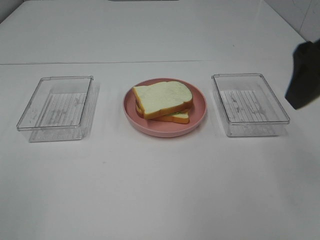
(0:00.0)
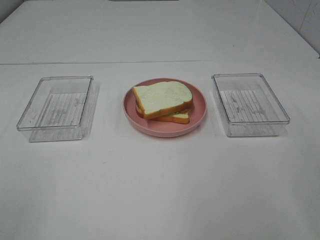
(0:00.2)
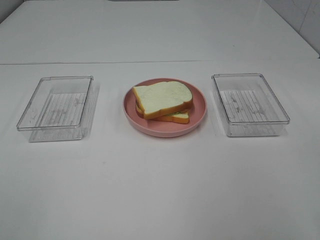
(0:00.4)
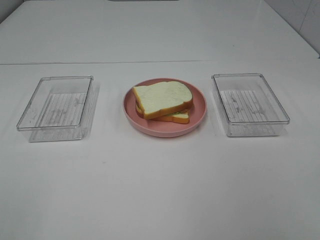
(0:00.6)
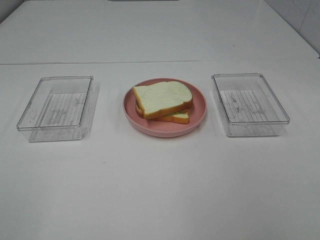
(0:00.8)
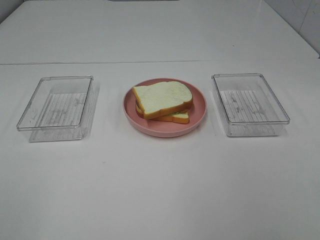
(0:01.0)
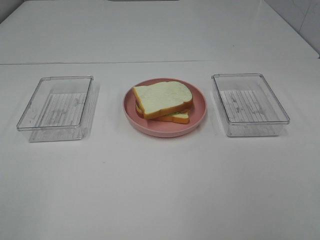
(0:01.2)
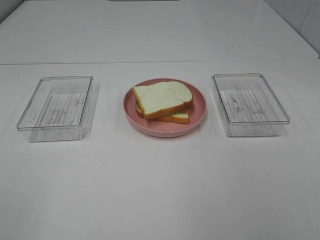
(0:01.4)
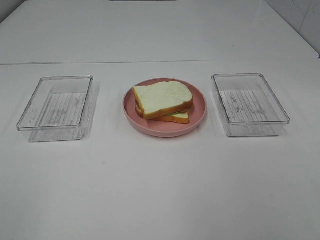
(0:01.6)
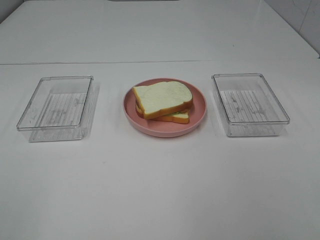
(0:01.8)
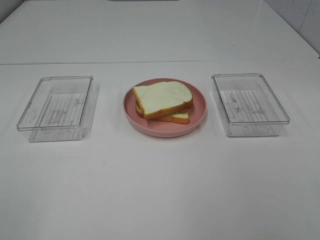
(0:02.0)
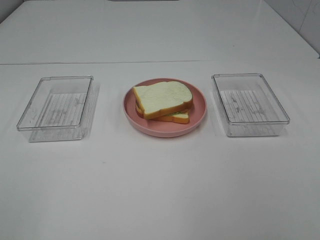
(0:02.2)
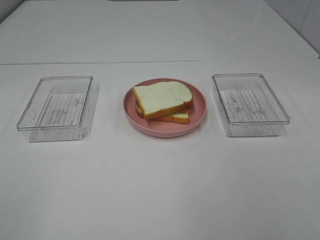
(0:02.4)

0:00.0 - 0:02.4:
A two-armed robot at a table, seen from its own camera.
Task of the whole recording: Make sandwiches.
0:00.0 - 0:01.2: The right gripper shifts approximately 20 cm backward.
0:01.2 - 0:02.4: The two grippers keep their place.

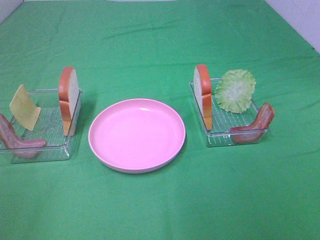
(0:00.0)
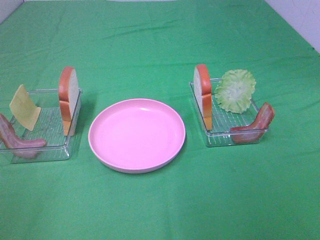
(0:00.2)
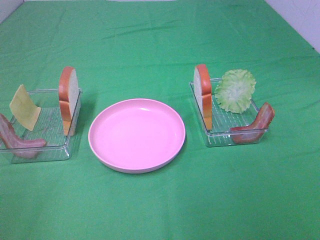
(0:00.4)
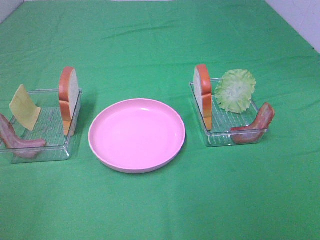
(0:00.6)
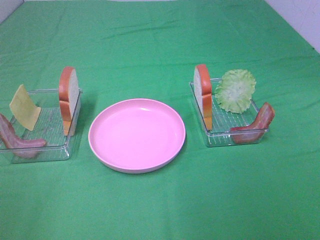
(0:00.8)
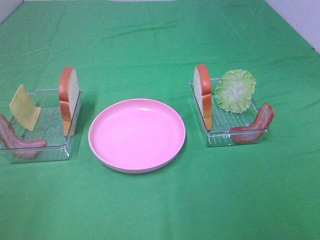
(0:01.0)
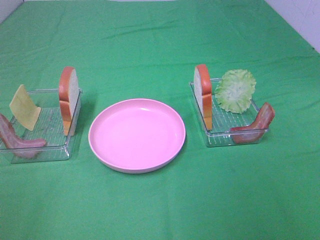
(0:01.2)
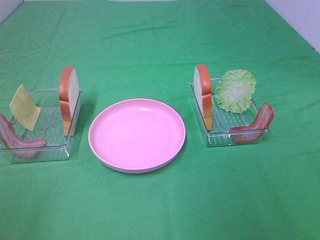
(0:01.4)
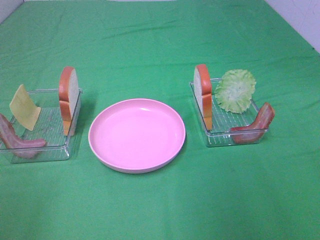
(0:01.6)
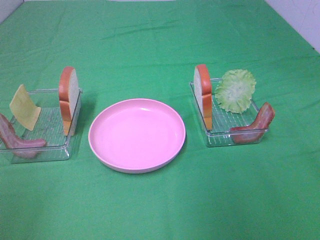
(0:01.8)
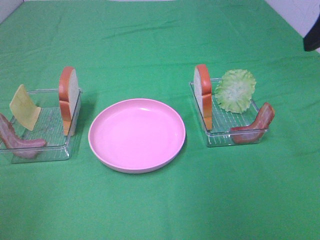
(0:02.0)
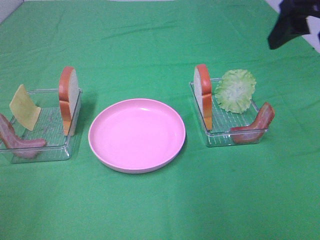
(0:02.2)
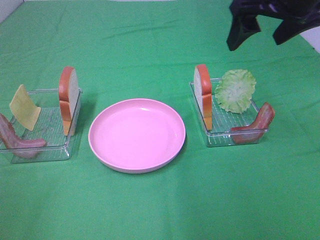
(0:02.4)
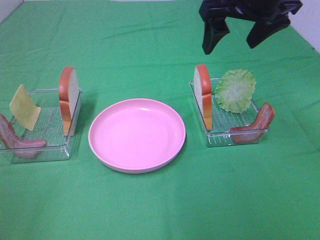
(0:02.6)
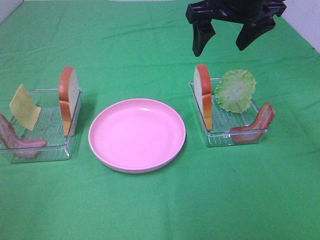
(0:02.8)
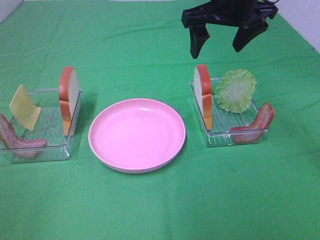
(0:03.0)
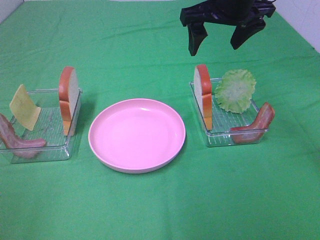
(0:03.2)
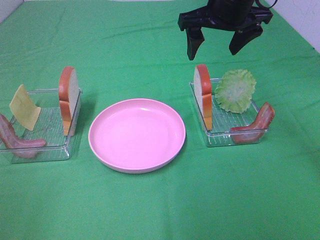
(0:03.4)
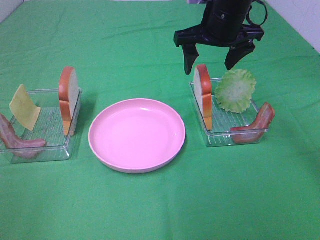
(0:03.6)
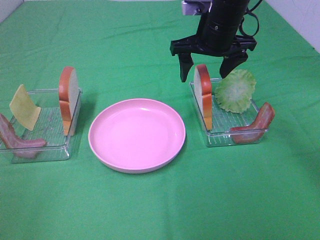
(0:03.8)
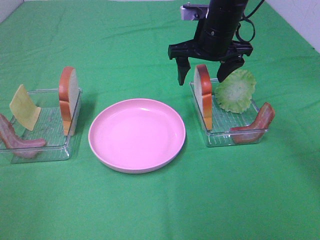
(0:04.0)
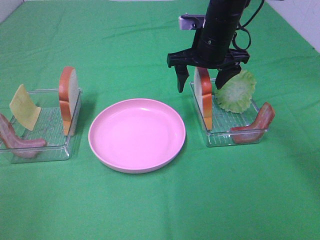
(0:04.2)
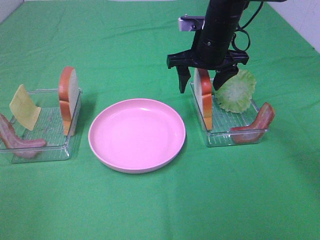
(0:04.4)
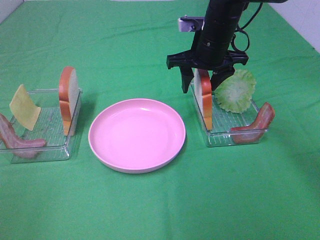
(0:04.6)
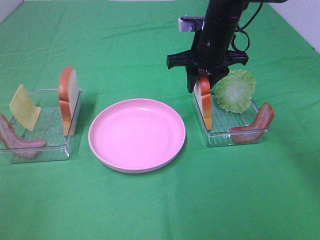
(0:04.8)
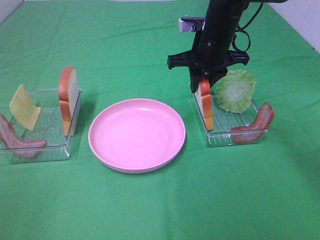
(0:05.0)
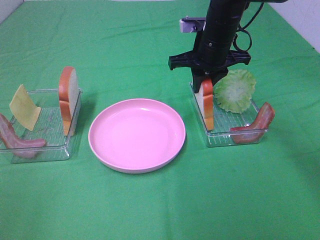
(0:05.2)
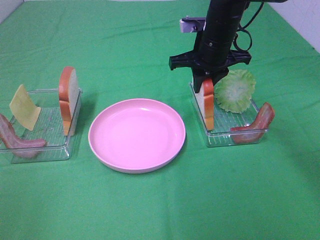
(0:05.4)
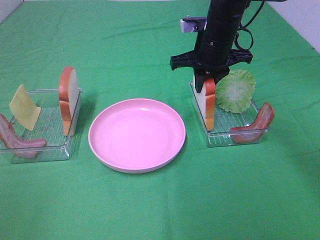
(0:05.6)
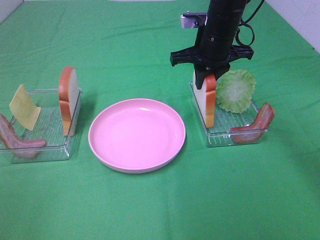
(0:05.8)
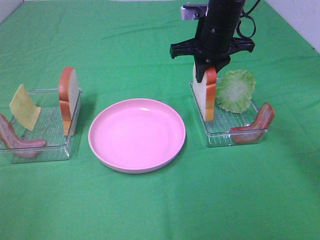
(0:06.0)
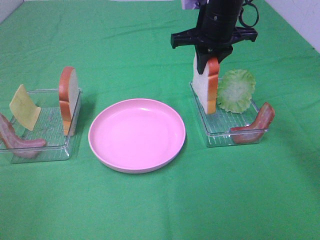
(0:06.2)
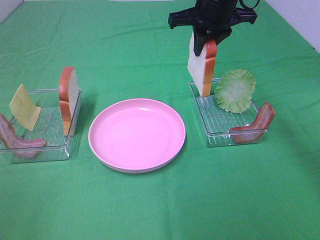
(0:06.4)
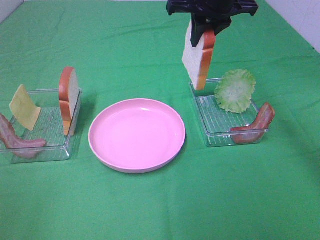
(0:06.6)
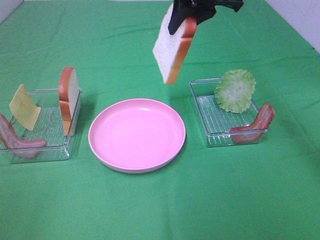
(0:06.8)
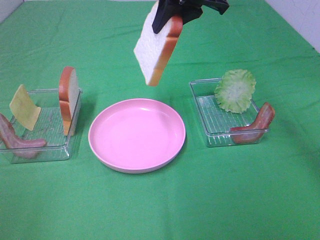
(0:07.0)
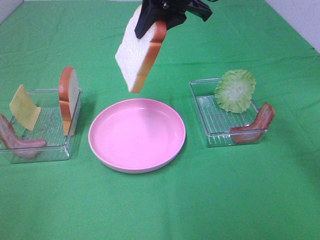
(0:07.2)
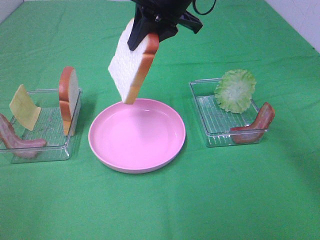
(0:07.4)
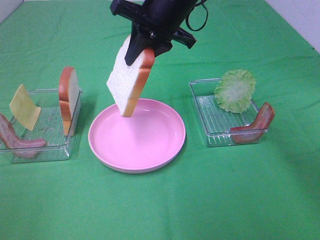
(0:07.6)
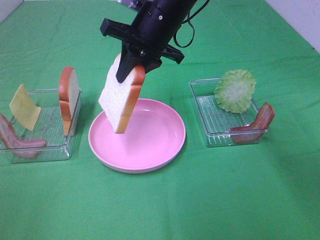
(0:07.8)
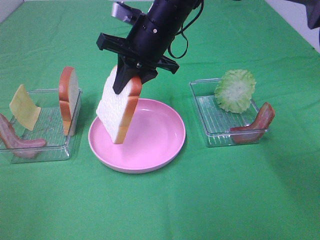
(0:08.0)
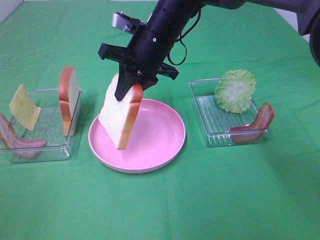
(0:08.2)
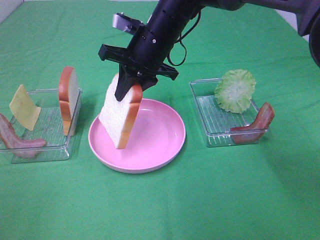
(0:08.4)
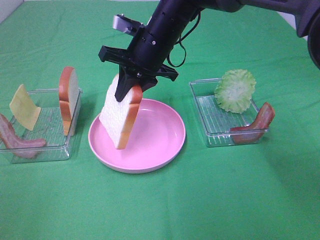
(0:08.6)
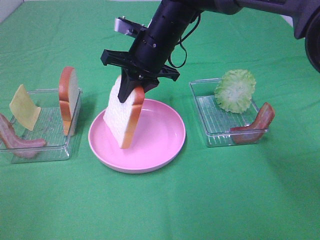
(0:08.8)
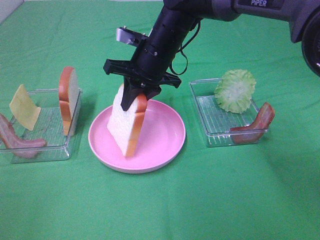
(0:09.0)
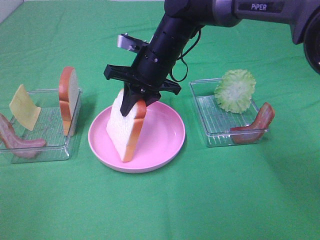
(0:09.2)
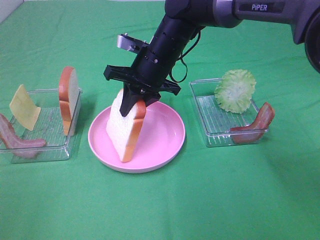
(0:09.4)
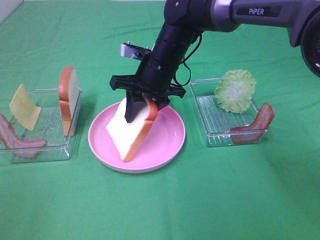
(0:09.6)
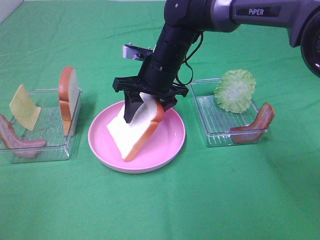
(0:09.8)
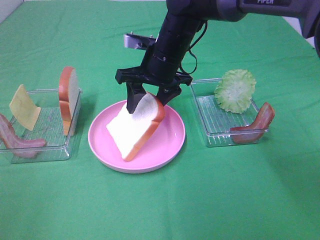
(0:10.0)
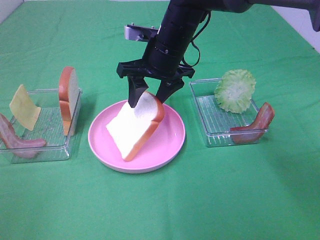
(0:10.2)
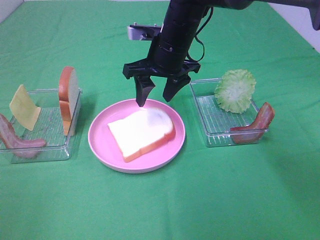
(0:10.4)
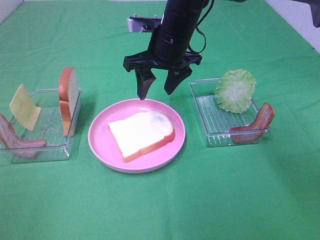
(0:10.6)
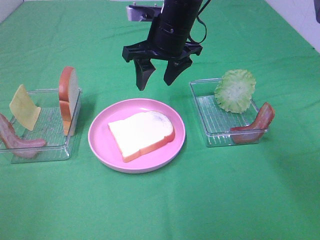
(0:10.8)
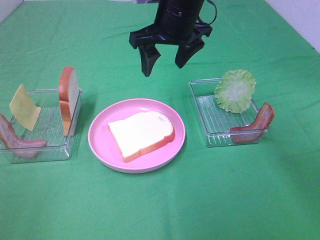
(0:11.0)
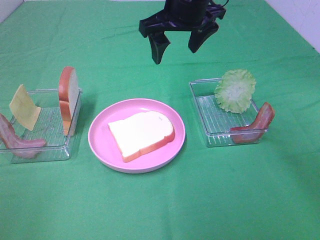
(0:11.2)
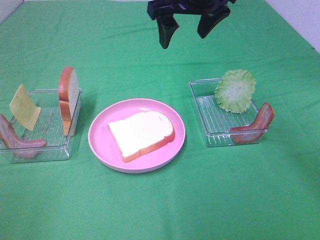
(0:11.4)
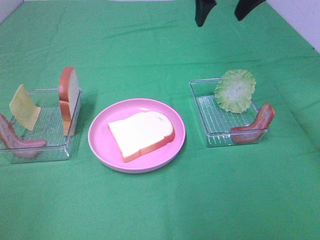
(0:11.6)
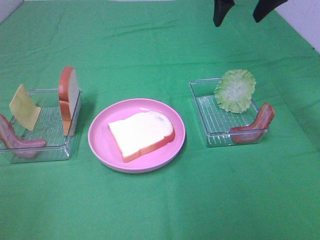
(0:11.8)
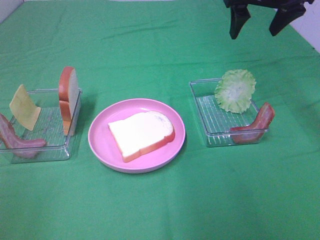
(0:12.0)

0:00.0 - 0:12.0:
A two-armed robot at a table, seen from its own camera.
Task of the whole recording: Make sandwiches.
Step, 0:00.0 - 0:05.6: Right hand:grab the bread slice.
Step, 0:05.8 - 0:10.4: Right hand:place the bread slice on the plate.
0:01.6 - 0:03.0: The right gripper travels forward and to the left by about 30 cm.
0:03.0 - 0:04.4: The right gripper is displaced downward by approximately 10 cm.
0:04.4 - 0:06.0: The right gripper closes its fingers.
0:06.0 - 0:07.6: The right gripper is displaced to the left by some 10 cm.
0:07.6 - 0:09.0: The right gripper travels downward by roughly 10 cm.
0:09.0 - 0:10.4: The right gripper opens its fingers.
0:10.4 - 0:12.0: The right gripper travels to the right and upward by roughly 20 cm.

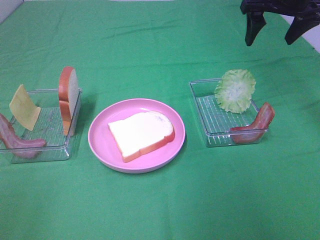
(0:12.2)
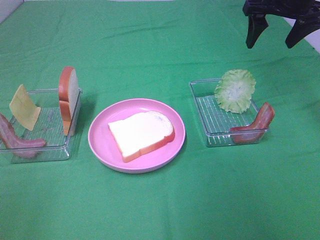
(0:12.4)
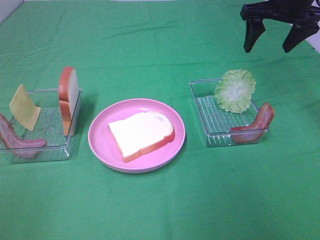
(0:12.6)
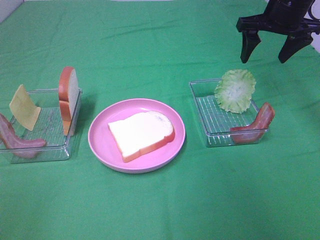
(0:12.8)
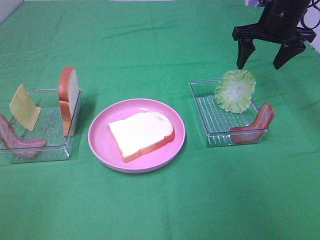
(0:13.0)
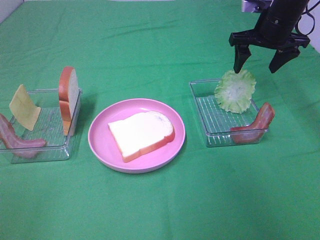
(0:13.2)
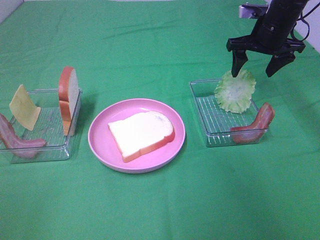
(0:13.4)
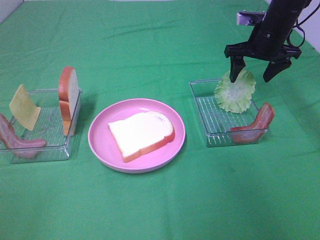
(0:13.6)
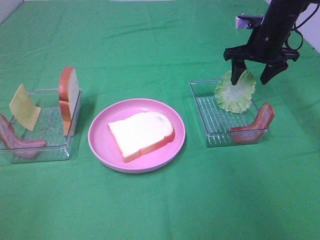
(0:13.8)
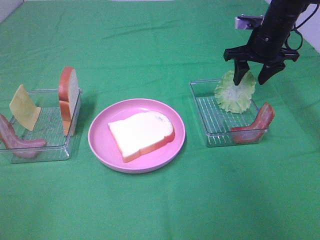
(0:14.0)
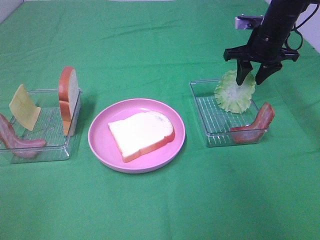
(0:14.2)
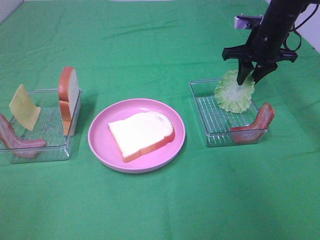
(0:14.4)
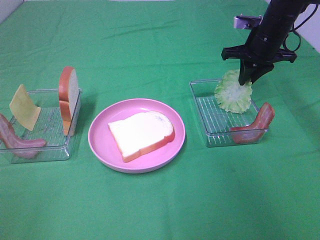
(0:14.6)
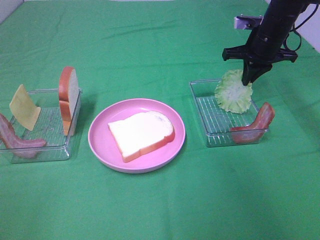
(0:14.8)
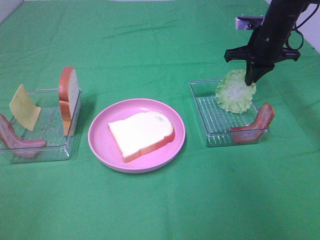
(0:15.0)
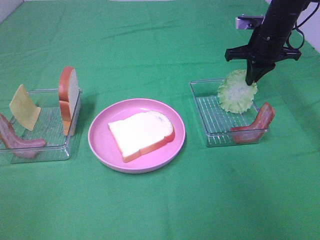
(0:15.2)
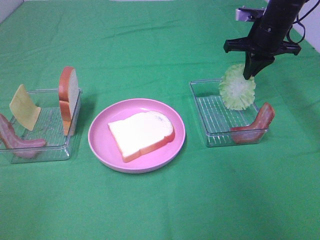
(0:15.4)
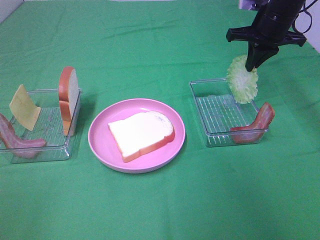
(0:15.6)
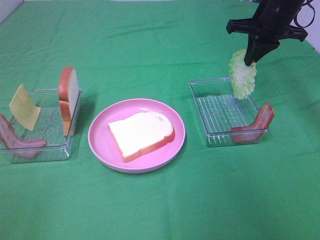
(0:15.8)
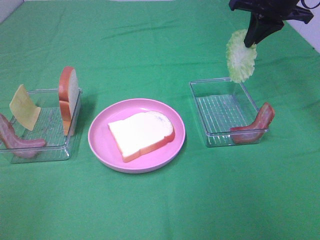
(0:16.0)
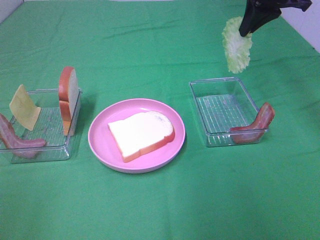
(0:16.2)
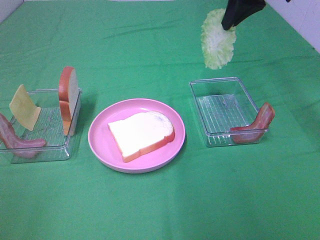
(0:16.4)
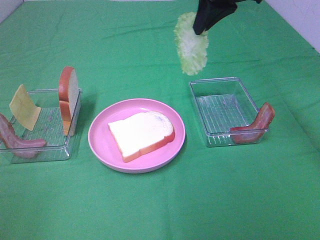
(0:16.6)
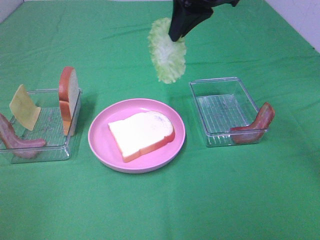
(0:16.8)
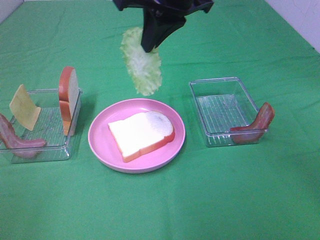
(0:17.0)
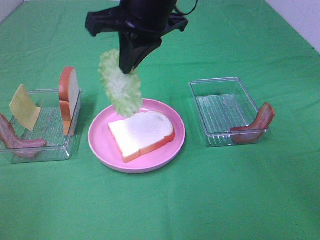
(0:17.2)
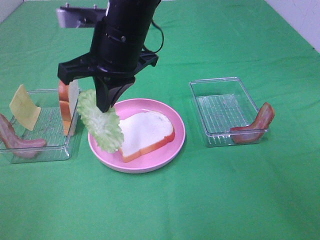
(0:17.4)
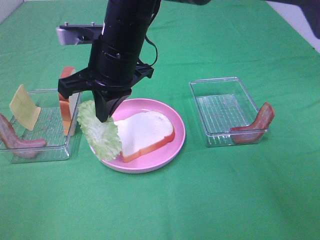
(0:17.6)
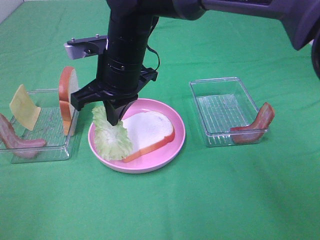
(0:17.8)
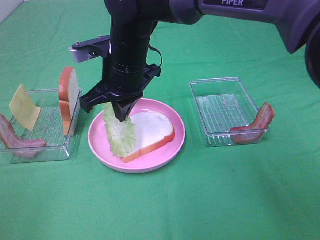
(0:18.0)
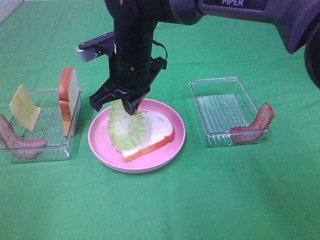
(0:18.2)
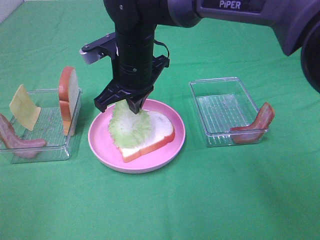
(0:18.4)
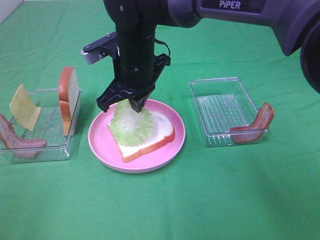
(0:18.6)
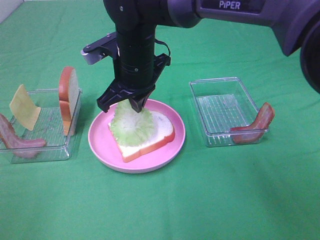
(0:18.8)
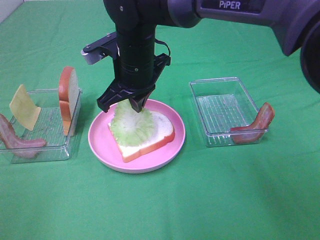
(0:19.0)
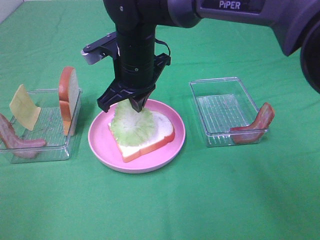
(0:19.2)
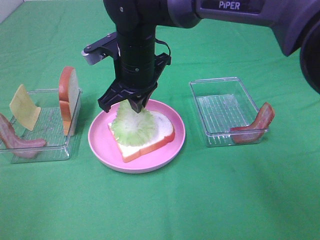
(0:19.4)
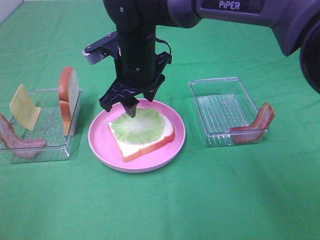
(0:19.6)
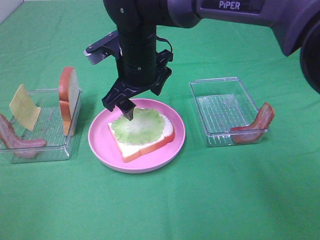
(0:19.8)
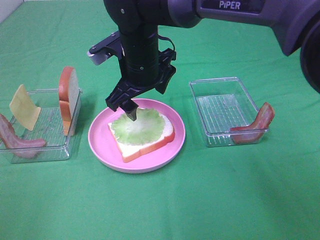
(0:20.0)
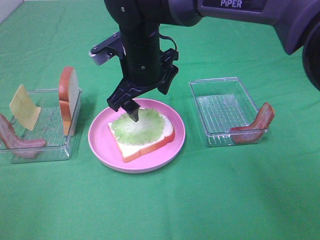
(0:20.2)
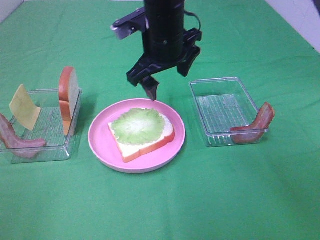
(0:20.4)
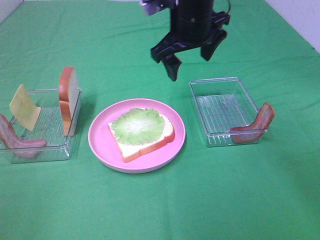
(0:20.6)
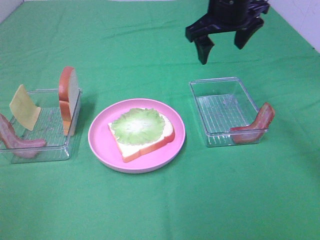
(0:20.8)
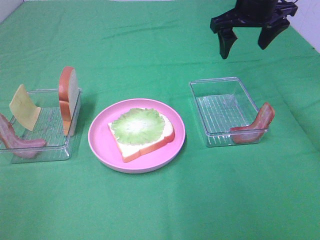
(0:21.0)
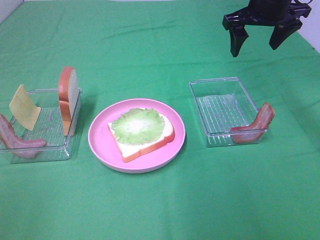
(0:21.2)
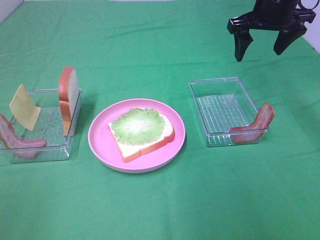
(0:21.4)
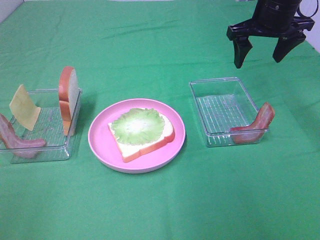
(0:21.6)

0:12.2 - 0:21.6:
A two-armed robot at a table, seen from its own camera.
Task of the whole recording: Make sandwiches.
Step, 0:12.2 - 0:14.8: Right hand:grab the lettuce slice.
Step, 0:15.0 - 0:20.2: Right hand:place the lettuce slice on the bread slice.
0:12.2 - 0:13.8: The right gripper heads downward, covering approximately 10 cm.
0:13.8 - 0:15.4: The right gripper closes up.
0:15.4 - 0:17.0: The right gripper travels to the left, backward and upward by roughly 25 cm.
0:17.0 - 0:18.4: The right gripper goes roughly 15 cm downward and to the left.
0:18.4 - 0:20.0: The right gripper opens its fingers.
0:20.0 - 0:21.6: The right gripper is displaced to the right by about 25 cm.
